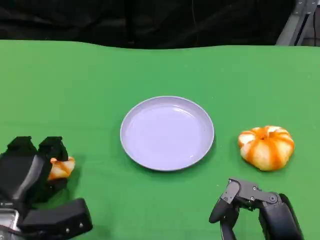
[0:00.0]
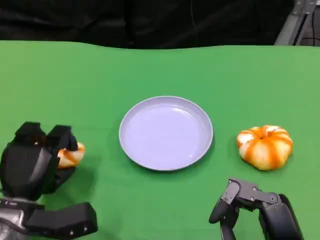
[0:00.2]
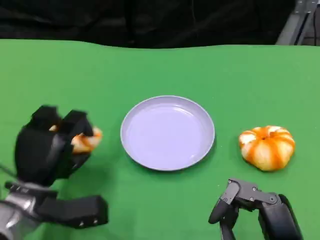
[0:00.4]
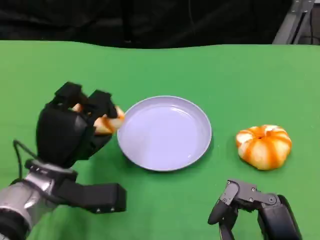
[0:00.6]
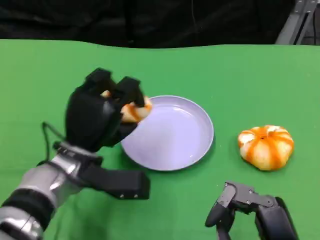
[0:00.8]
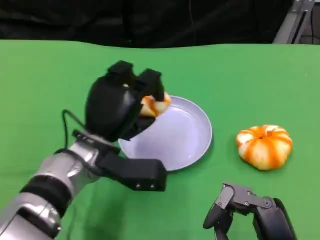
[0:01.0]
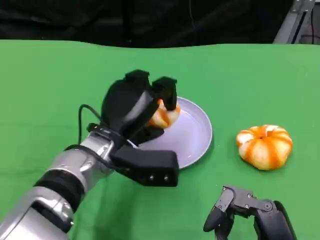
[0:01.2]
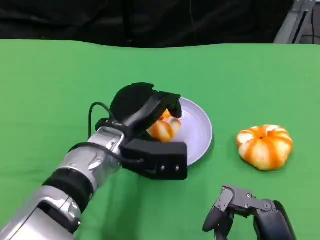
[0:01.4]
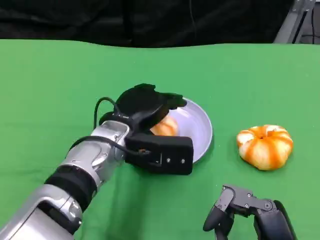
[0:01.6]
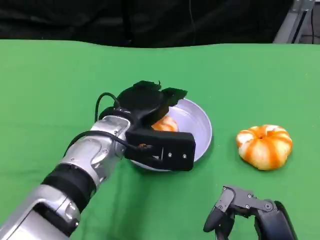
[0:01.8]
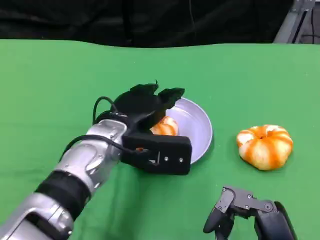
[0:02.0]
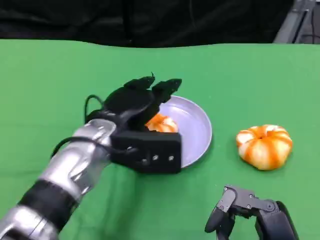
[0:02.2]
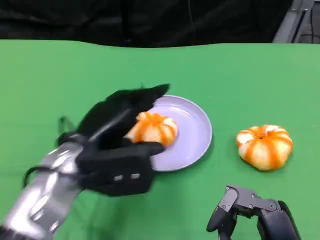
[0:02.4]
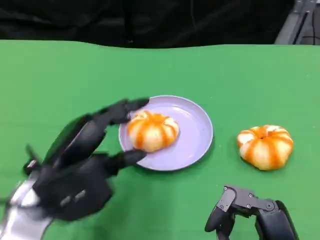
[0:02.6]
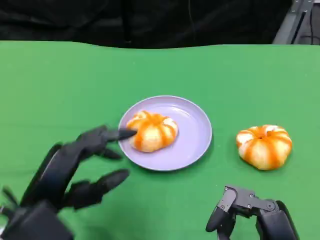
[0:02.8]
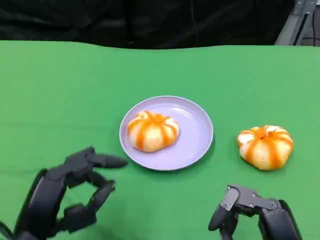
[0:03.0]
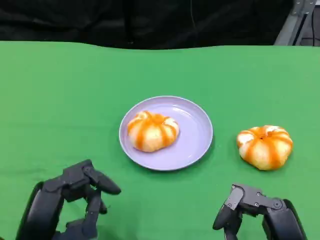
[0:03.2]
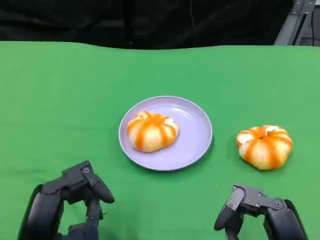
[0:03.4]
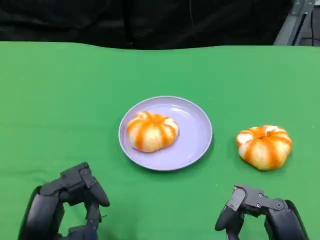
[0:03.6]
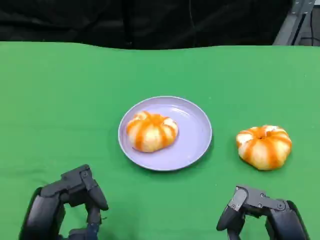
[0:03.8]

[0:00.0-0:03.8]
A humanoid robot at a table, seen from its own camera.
Task of the whole recording: Grasp the bread from the table and place it into the plate.
0.0 to 1.2 s: The left hand goes approximately 20 cm to the right, upward and forward.
1.2 to 2.6 s: The left hand shifts approximately 15 cm to the left and backward.
2.6 to 3.8 s: The left hand goes approximately 10 cm backward and downward.

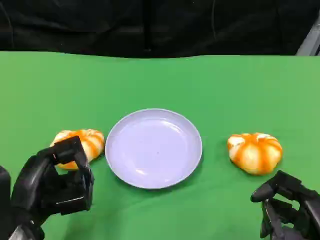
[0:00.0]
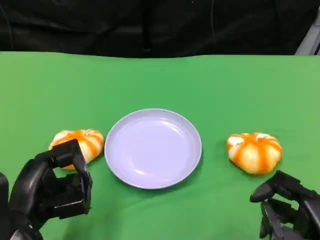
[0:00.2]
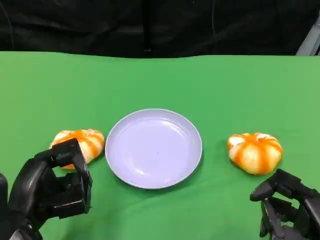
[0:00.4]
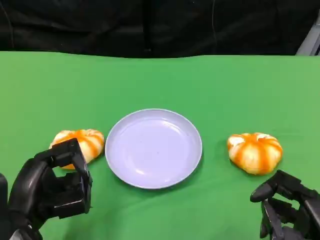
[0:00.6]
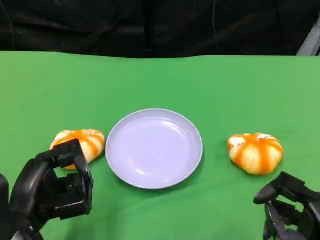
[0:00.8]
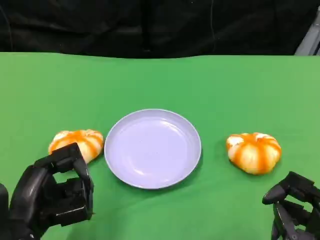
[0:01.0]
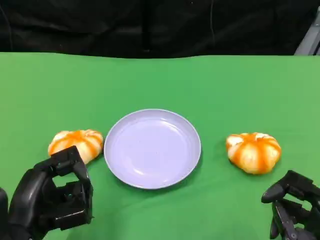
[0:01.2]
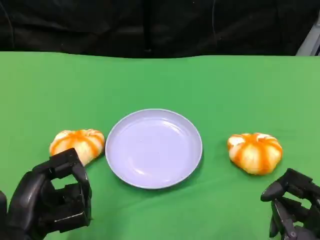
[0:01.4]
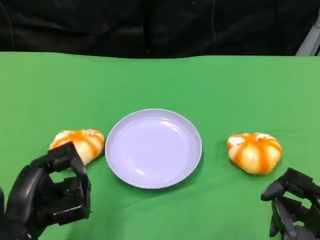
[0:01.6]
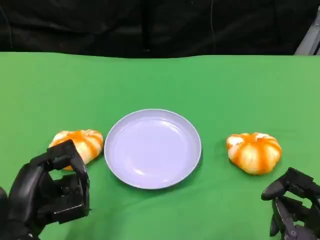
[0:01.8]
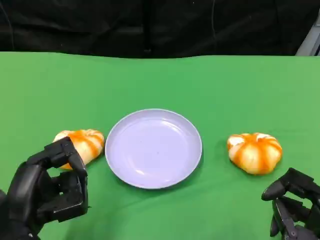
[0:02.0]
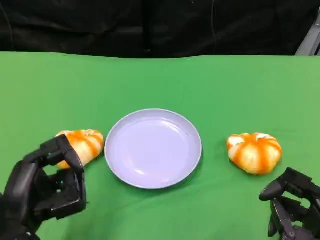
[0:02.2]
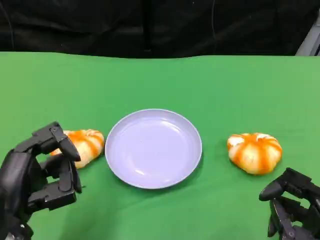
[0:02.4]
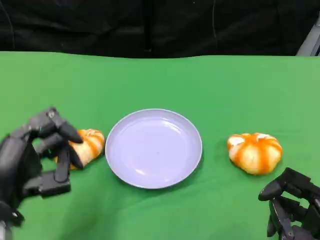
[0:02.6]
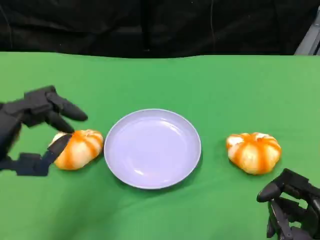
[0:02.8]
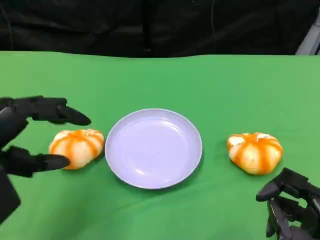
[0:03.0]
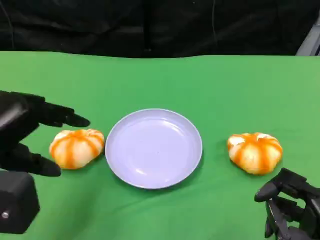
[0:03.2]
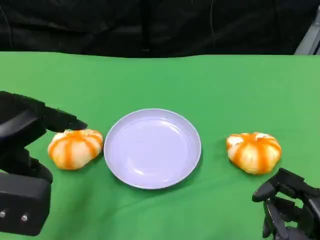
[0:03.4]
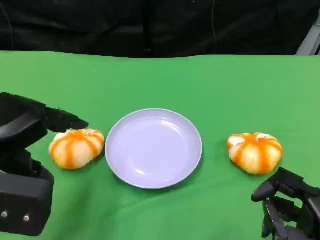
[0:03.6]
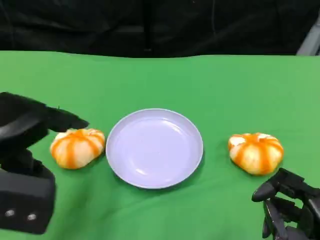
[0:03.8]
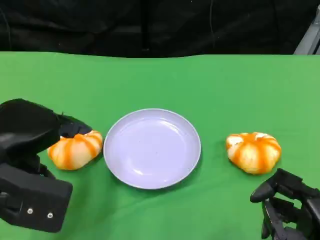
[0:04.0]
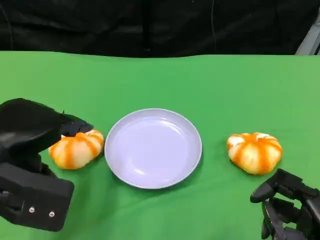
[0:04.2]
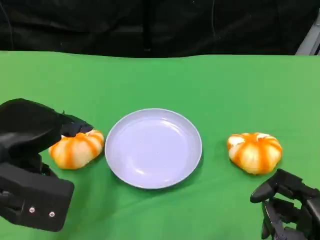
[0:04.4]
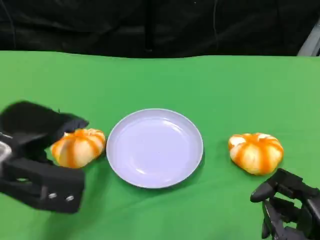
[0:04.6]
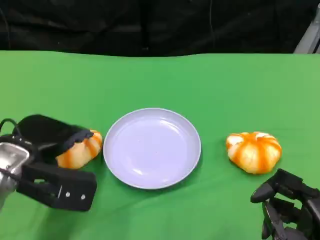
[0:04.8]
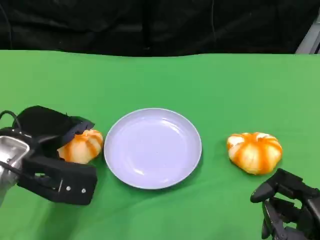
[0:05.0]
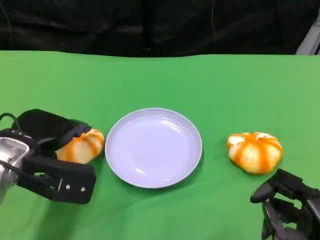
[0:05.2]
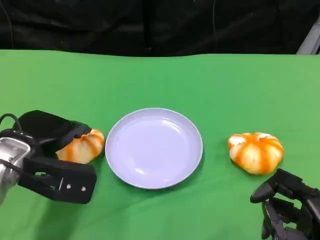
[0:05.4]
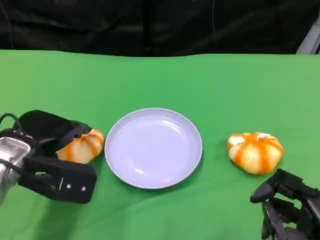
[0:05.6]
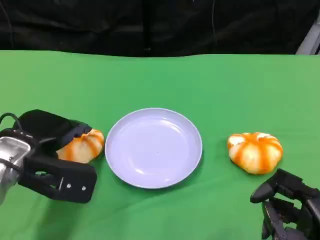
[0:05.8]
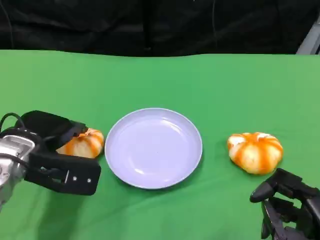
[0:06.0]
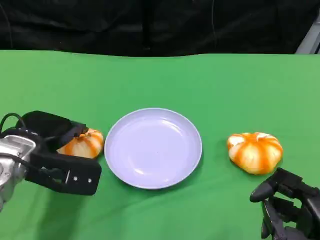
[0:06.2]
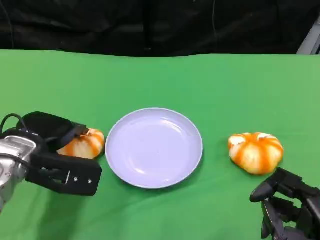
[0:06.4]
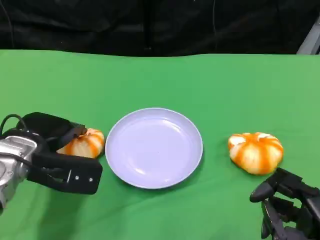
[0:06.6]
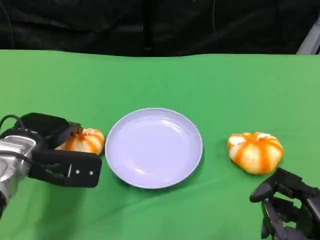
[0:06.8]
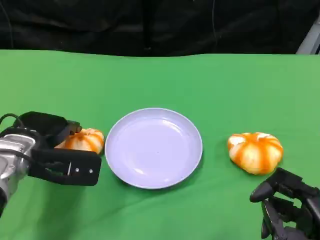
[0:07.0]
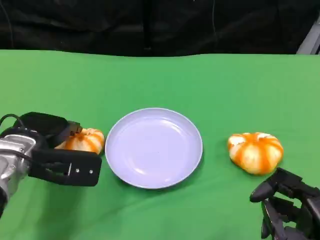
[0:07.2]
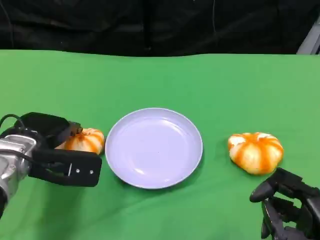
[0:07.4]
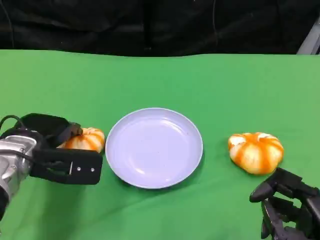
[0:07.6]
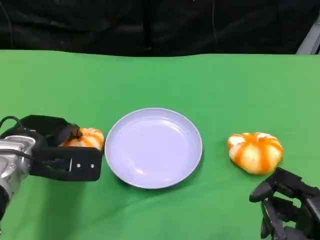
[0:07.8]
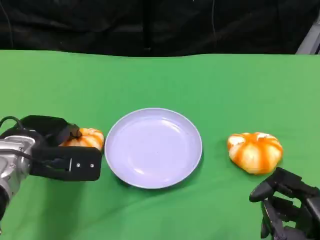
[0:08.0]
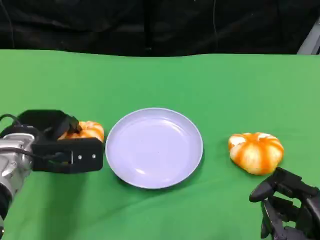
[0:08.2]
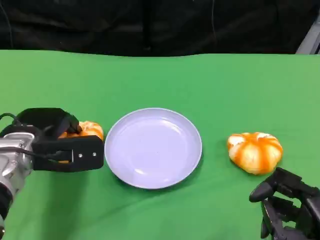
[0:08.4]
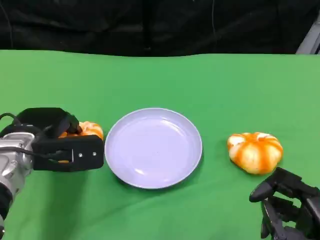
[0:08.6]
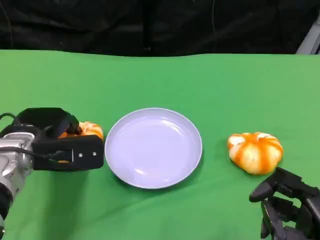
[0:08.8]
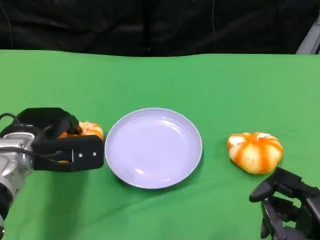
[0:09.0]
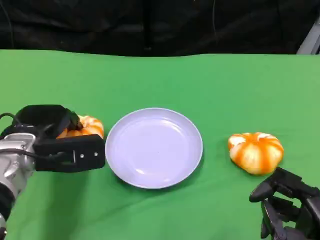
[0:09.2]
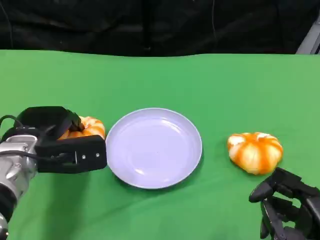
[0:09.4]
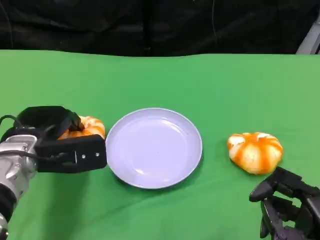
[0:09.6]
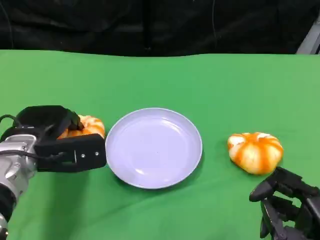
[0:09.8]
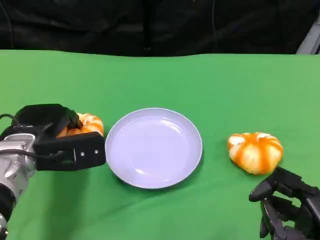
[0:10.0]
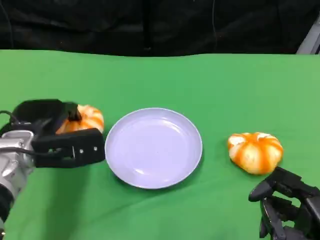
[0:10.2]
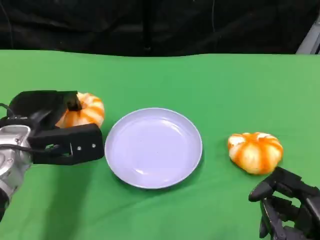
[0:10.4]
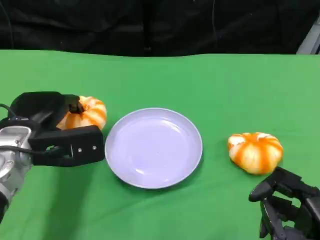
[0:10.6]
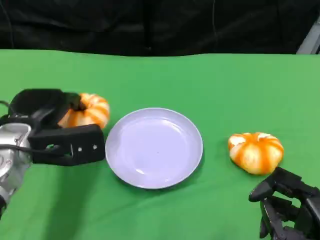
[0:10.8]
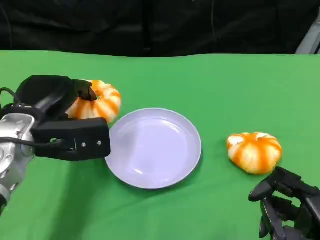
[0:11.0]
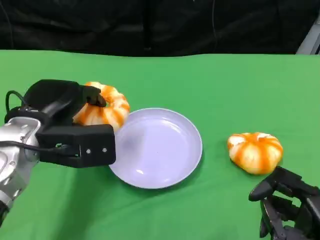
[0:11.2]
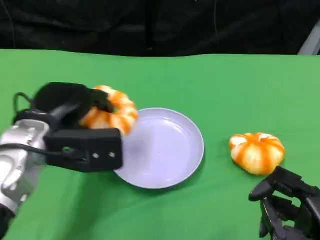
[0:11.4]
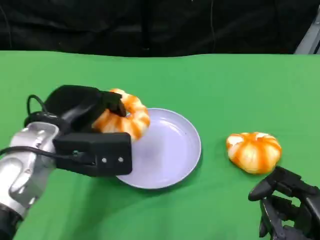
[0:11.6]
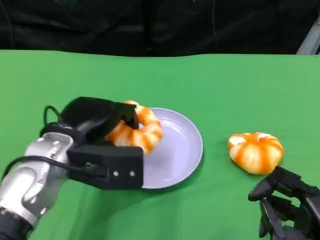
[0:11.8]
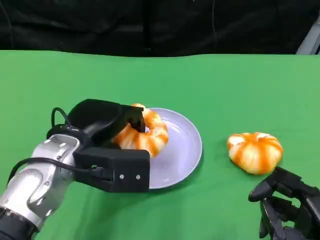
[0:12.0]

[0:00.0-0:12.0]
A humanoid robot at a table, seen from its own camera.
Task of the whole recording: Grasp the bread from the table and place it into the plate.
0.0 to 1.6 s: The hands stay close to where they were, moving slightly.
1.6 to 3.0 s: The left hand shifts some 10 cm upward and to the left.
4.4 to 6.0 s: The left hand is displaced downward and forward by roughly 10 cm.
6.0 to 9.0 s: There are only small adjustments of the hands.
9.0 to 10.4 s: There are only small adjustments of the hands.
10.4 to 12.0 s: The left hand shifts some 5 cm to the right.

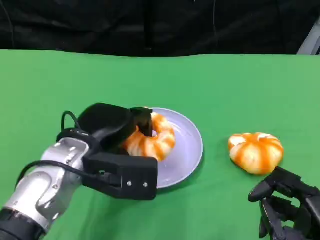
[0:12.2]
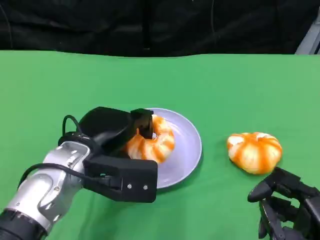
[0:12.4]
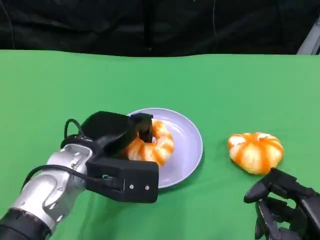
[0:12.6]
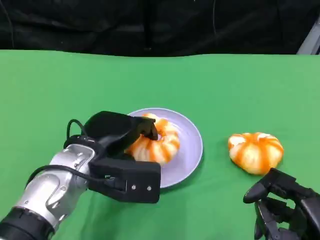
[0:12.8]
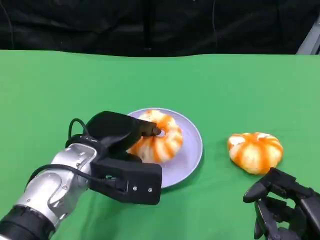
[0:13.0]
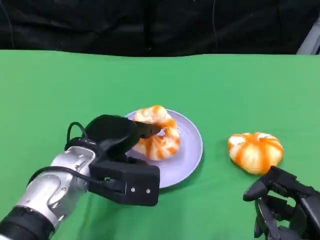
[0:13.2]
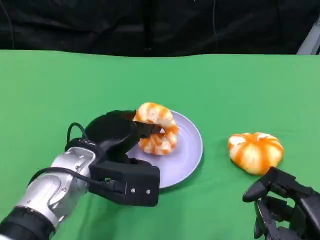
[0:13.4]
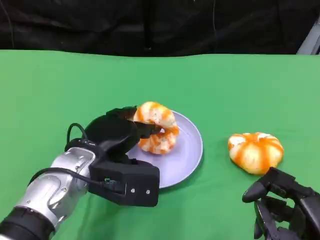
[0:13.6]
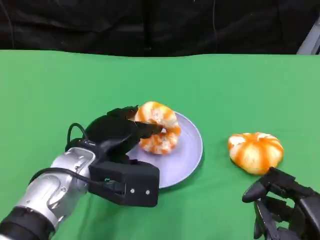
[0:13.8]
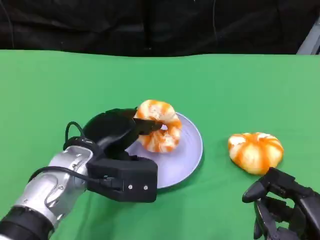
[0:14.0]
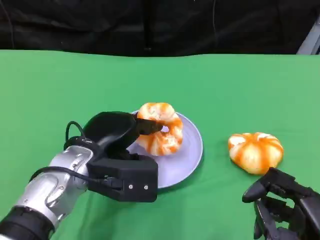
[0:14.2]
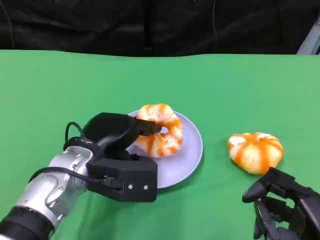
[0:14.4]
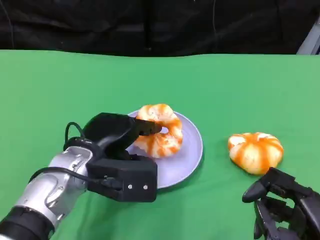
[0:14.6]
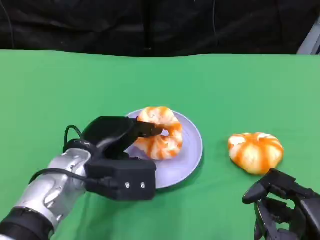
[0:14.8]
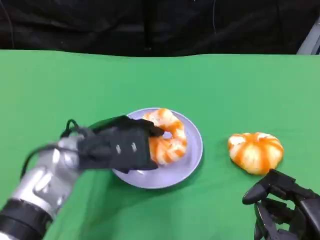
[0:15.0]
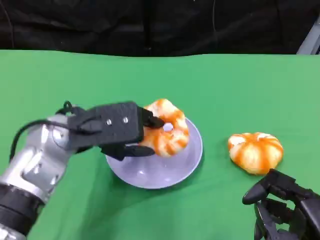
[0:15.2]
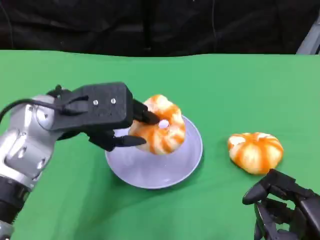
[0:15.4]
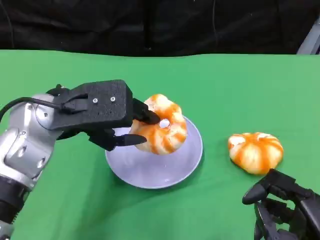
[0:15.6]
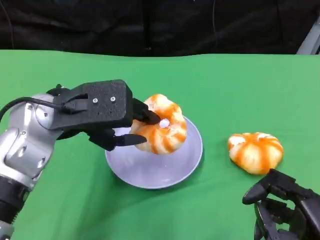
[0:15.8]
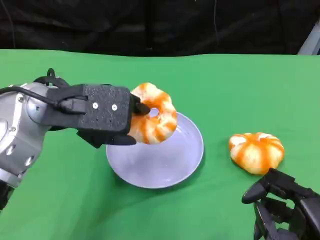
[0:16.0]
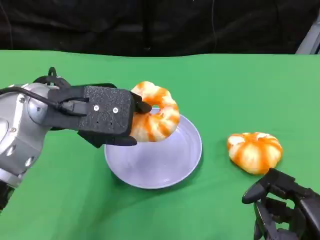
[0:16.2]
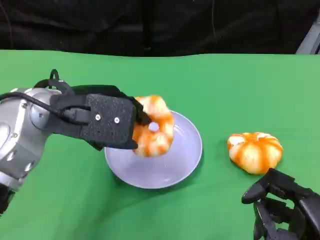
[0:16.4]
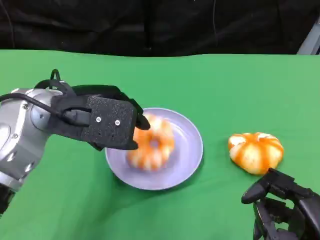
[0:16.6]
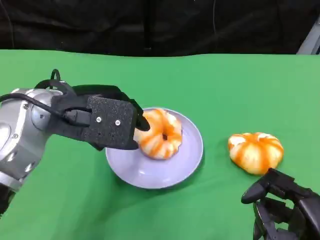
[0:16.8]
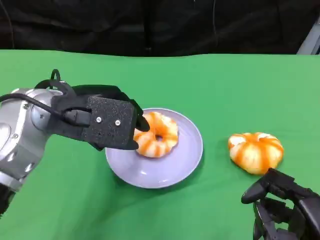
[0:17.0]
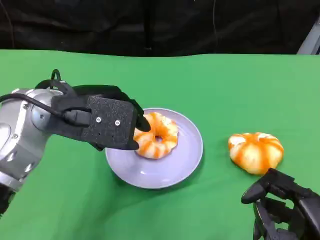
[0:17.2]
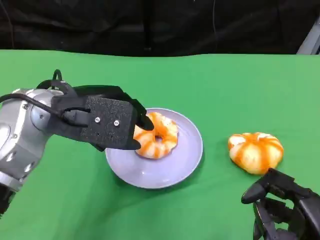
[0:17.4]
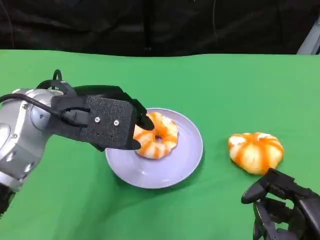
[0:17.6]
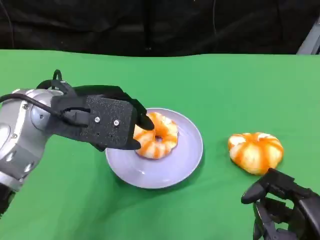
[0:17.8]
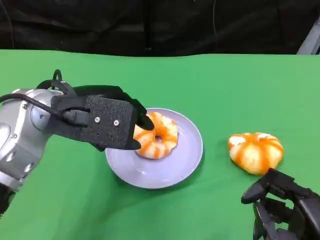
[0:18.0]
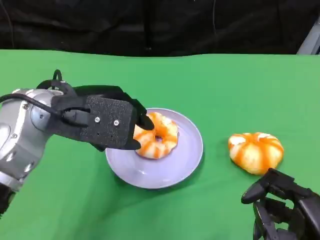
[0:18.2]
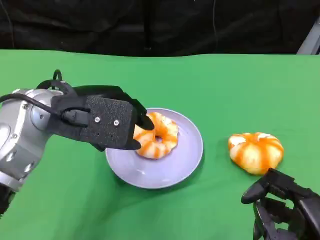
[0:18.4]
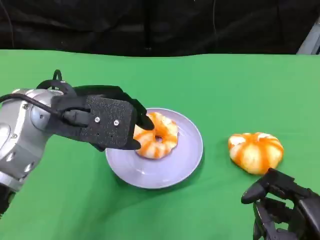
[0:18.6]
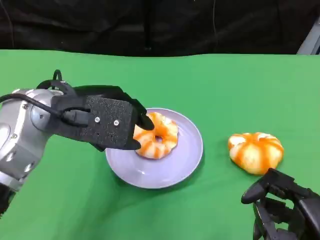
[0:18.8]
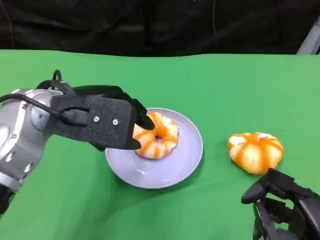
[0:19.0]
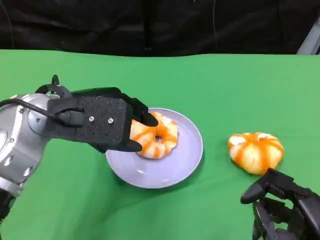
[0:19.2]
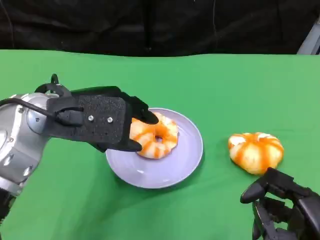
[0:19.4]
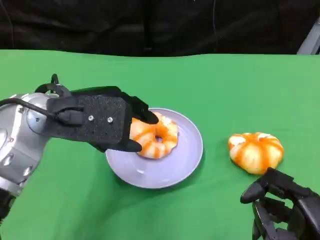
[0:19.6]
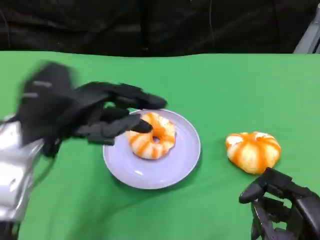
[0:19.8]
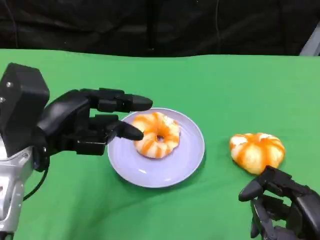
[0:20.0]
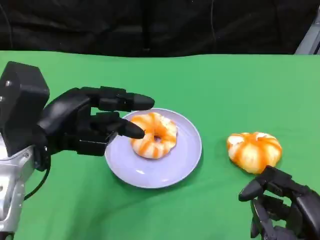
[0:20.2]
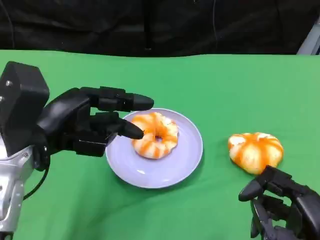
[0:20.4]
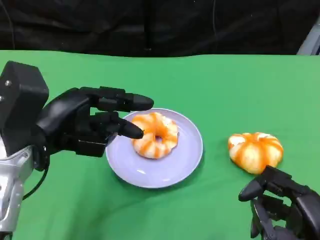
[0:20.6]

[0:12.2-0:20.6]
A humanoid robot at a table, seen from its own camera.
Task of the whole recording: Grasp the bread from the table and place it into the plate.
12.2 to 13.6 s: The hands move only a little.
15.0 to 16.4 s: The left hand travels upward by some 10 cm.
16.4 to 17.8 s: Both hands stay put.
17.8 to 19.2 s: The hands move only a little.
19.2 to 20.6 s: The left hand shifts by about 5 cm.
